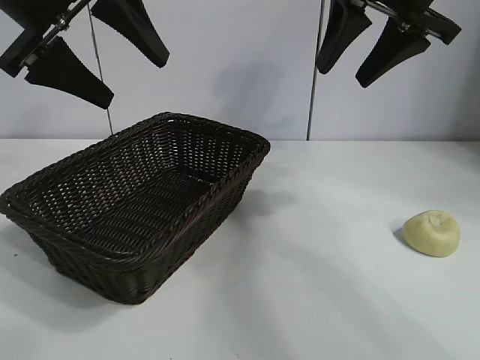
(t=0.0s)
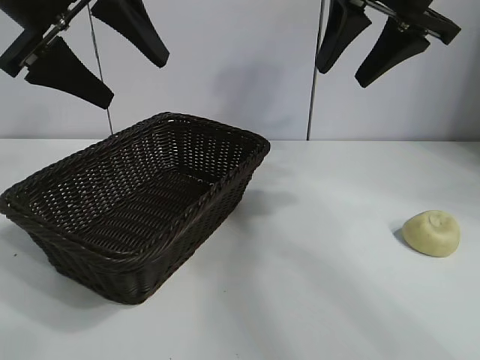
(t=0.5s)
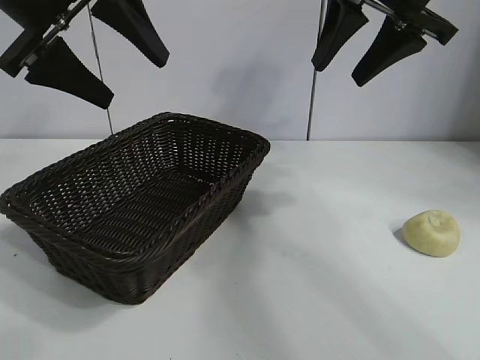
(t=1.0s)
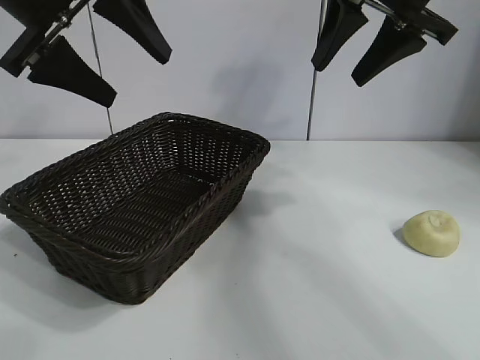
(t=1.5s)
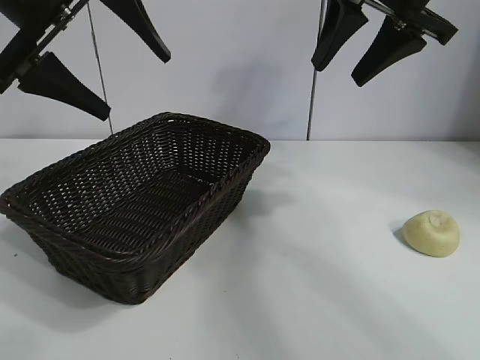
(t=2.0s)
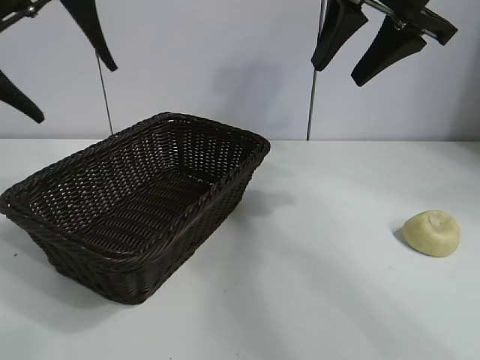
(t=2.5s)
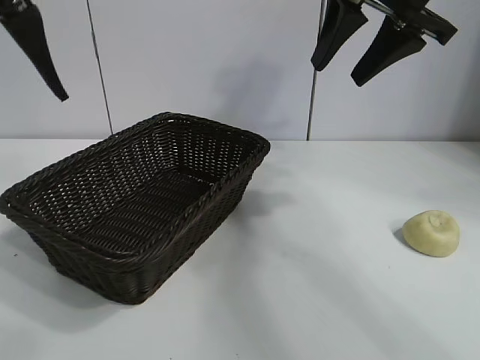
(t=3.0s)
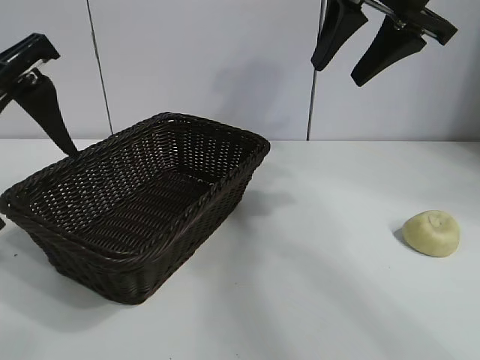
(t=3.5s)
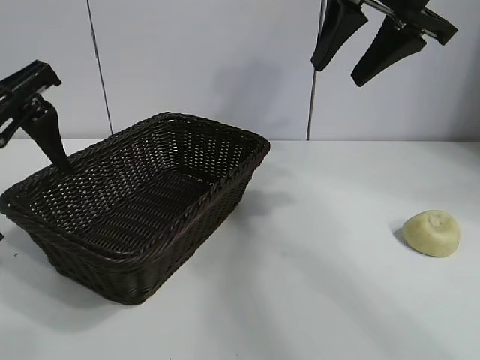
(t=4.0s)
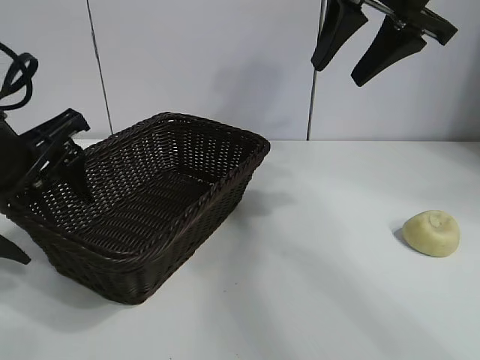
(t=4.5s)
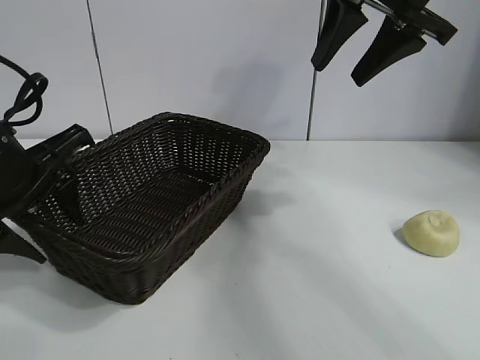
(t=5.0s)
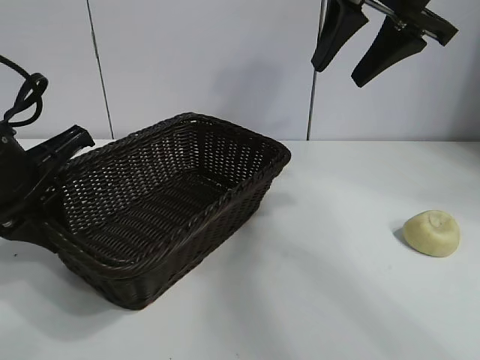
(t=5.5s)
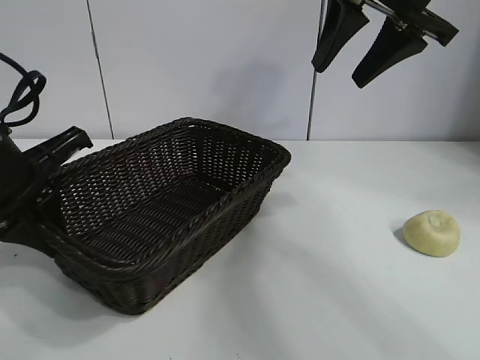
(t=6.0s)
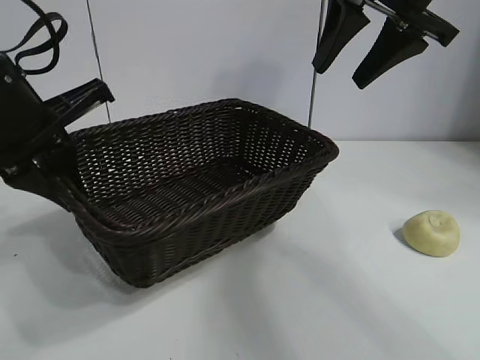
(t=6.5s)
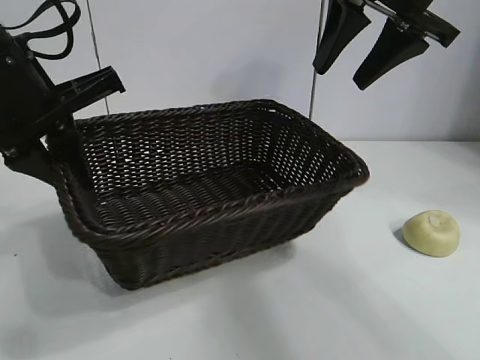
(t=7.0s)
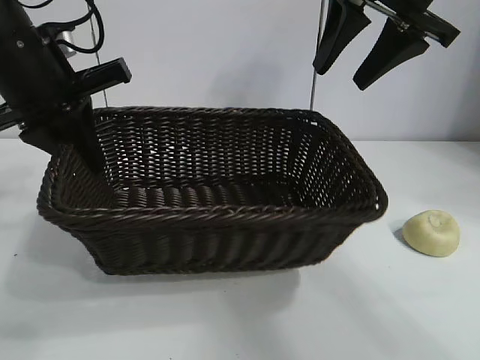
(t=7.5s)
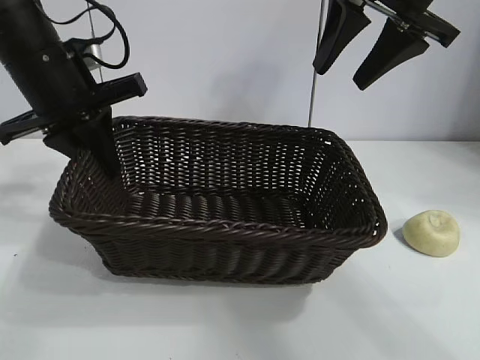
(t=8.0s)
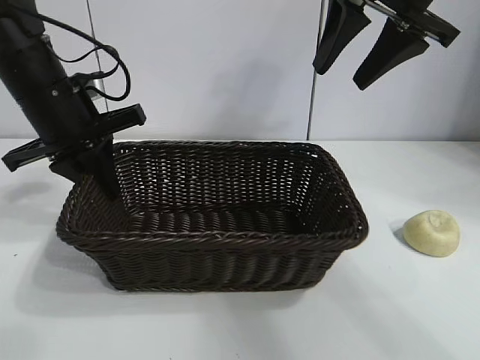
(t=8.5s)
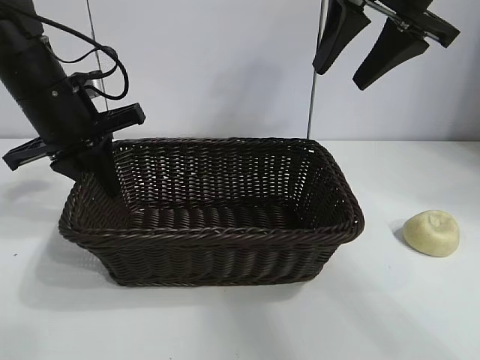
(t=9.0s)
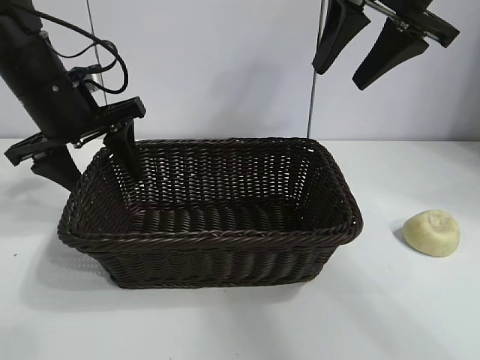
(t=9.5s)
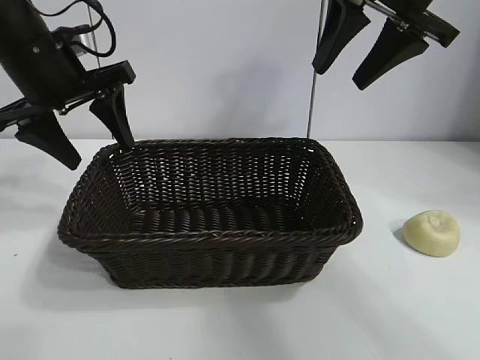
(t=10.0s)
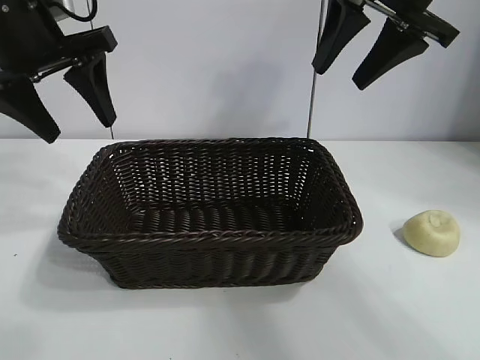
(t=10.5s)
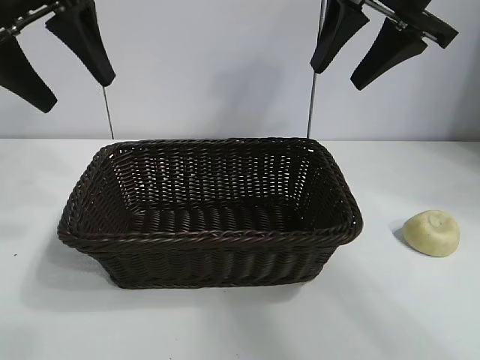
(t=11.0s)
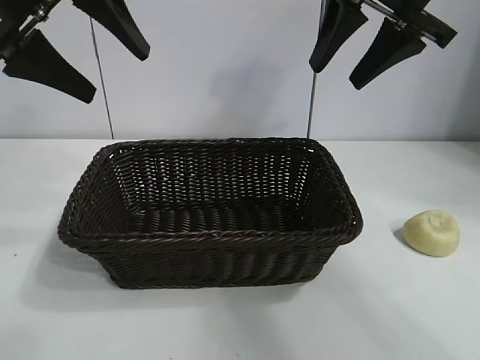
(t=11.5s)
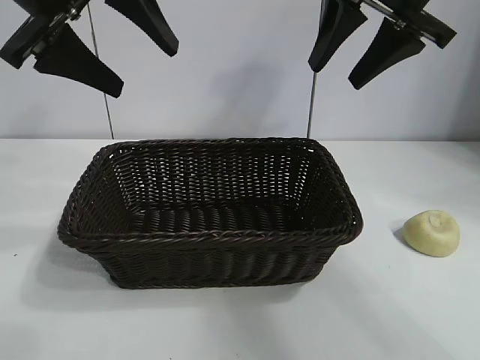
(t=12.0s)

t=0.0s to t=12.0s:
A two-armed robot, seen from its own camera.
Task of the whole recording: pick up the egg yolk pastry and put it into the basket.
Step, t=1.0s to t=5.0s: Grasp the basket with left gripper.
Step, t=6.0s to t=9.0s: Place the basket in the center of view with left gripper.

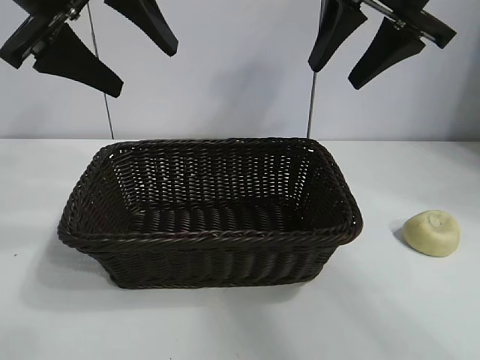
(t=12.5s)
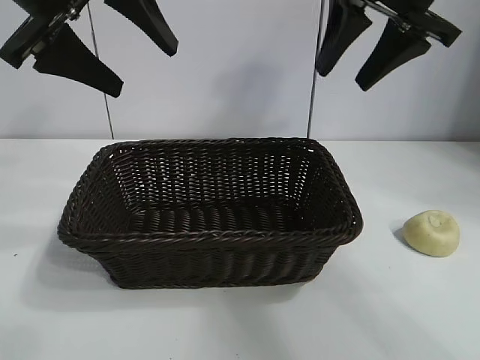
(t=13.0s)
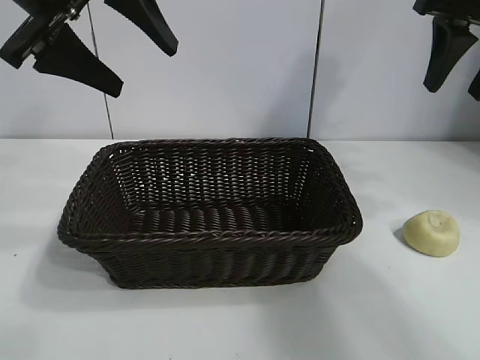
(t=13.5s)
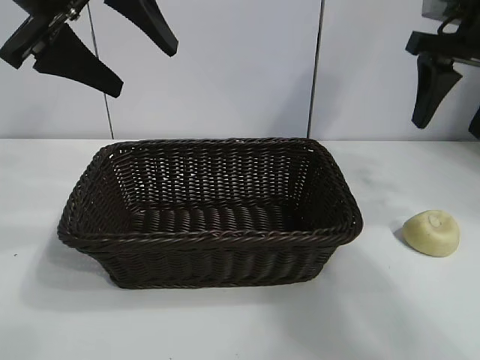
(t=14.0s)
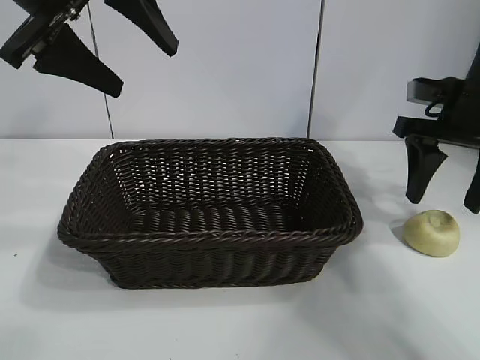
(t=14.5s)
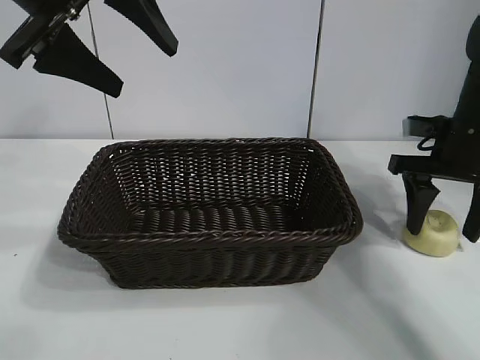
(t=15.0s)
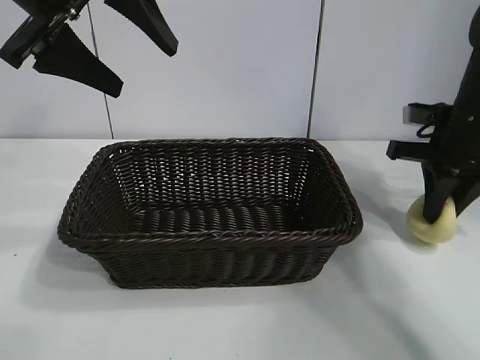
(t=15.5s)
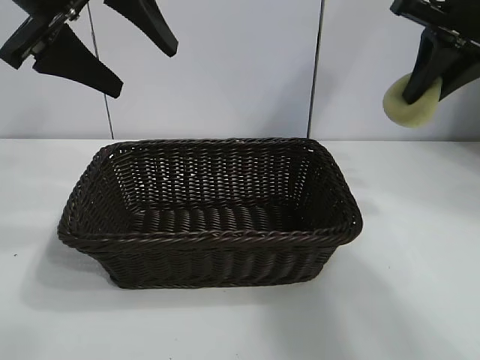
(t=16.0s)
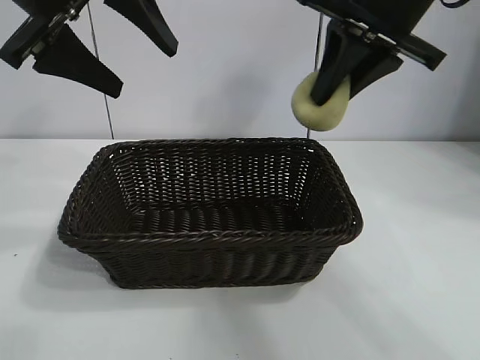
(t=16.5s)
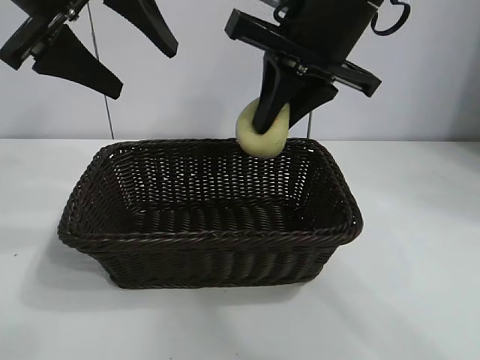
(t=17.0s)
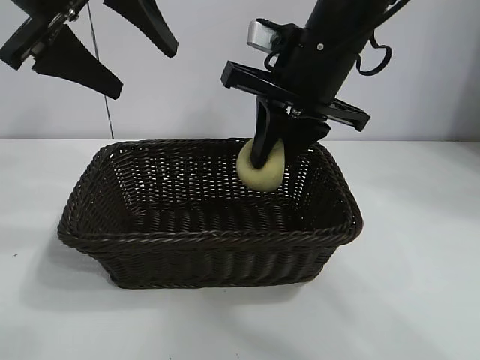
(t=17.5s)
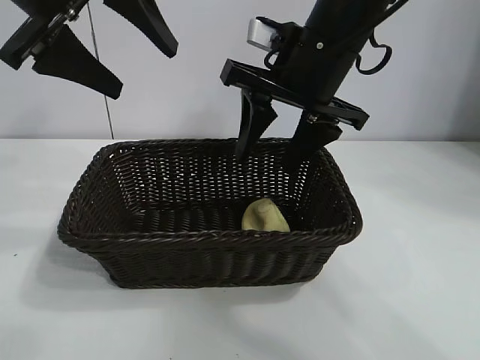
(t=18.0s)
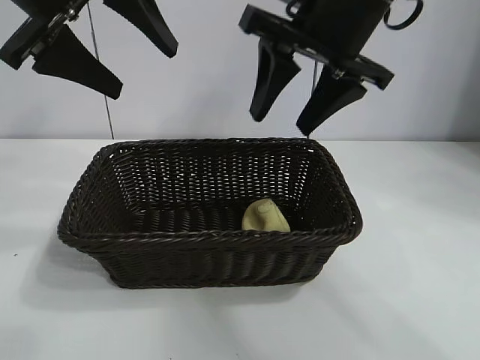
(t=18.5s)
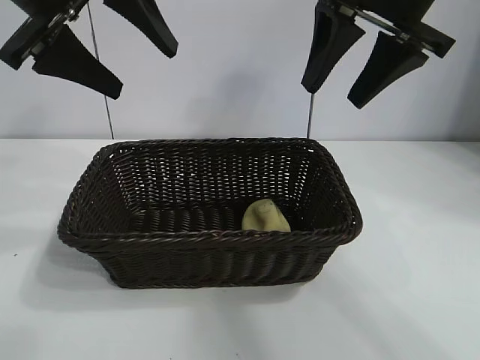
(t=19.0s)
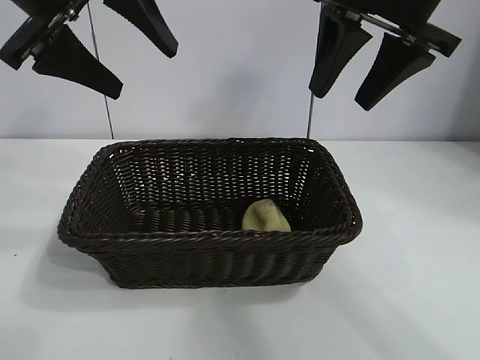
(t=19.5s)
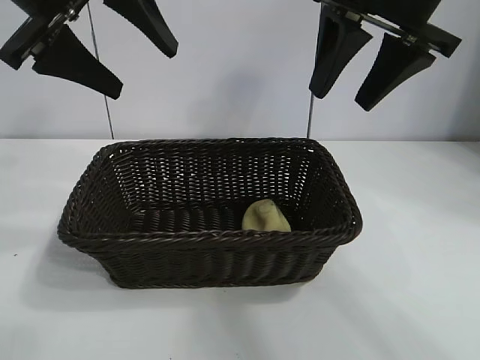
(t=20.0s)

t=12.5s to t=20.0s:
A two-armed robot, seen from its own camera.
Task of the whole recording: pick up the egg yolk pastry and put it into the basket.
Step, t=12.5s to t=15.0s: Grasp egg yolk pastry with right gripper.
Step, t=15.5s to t=17.5s: Place the egg yolk pastry in the basket with right gripper.
